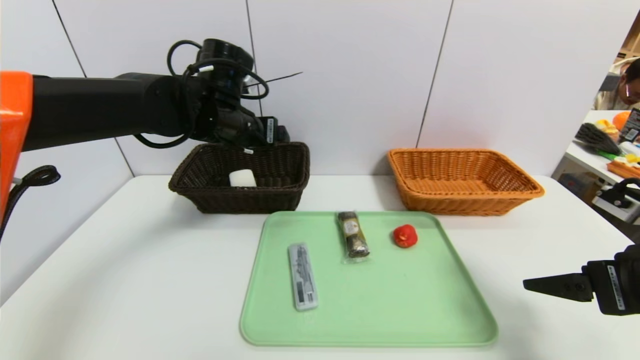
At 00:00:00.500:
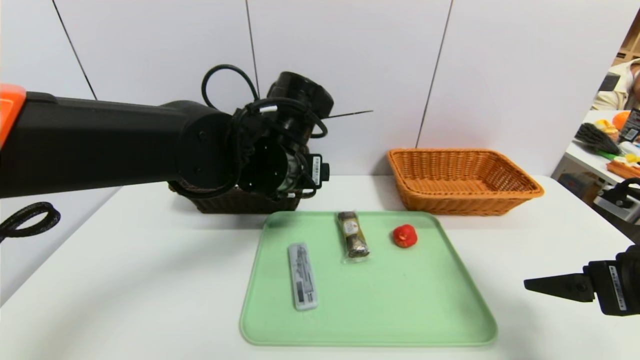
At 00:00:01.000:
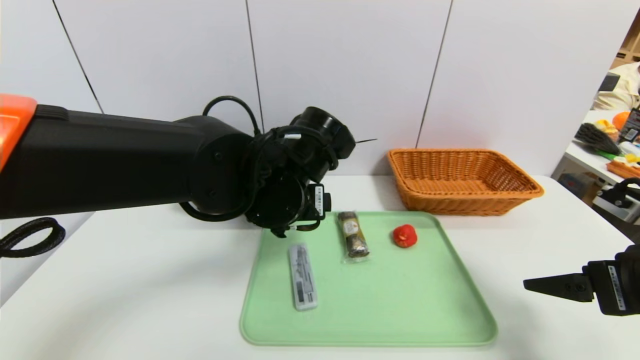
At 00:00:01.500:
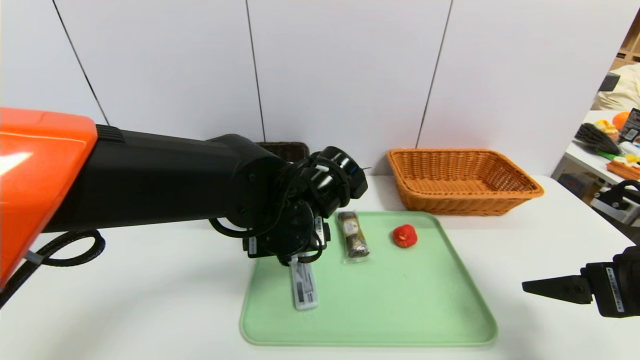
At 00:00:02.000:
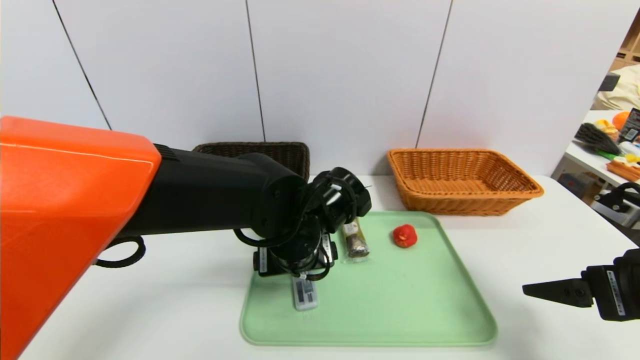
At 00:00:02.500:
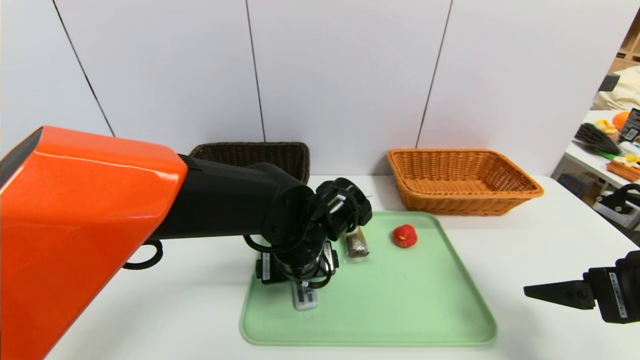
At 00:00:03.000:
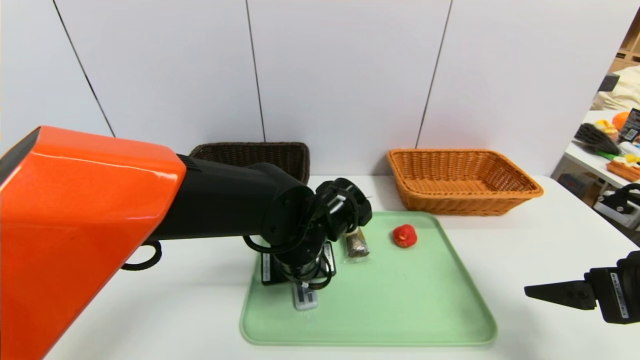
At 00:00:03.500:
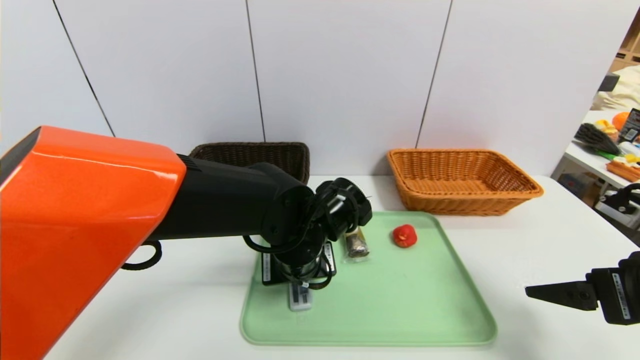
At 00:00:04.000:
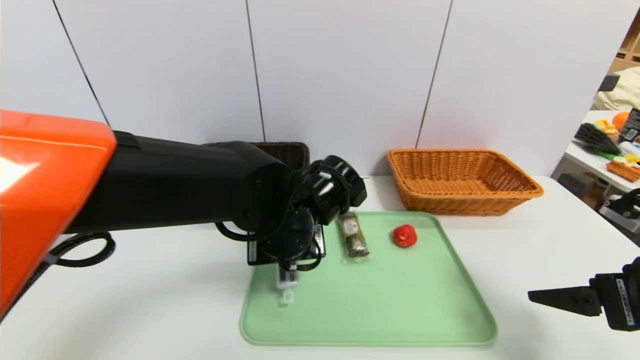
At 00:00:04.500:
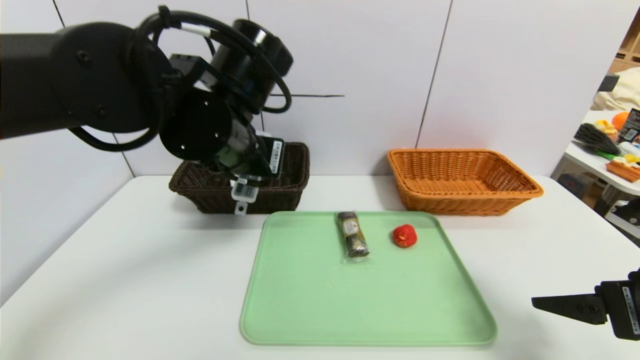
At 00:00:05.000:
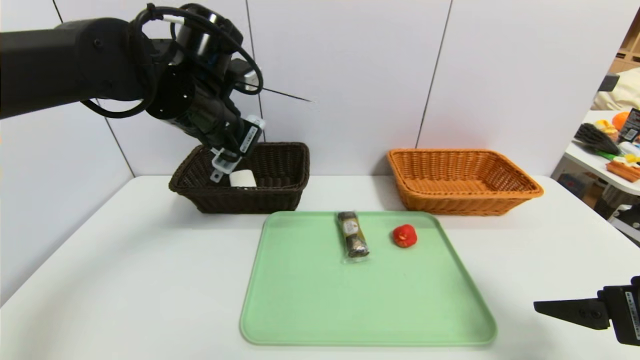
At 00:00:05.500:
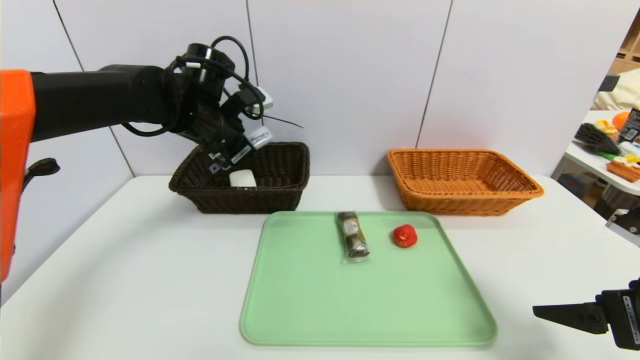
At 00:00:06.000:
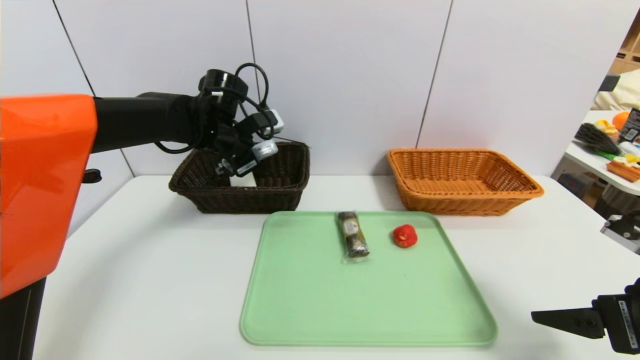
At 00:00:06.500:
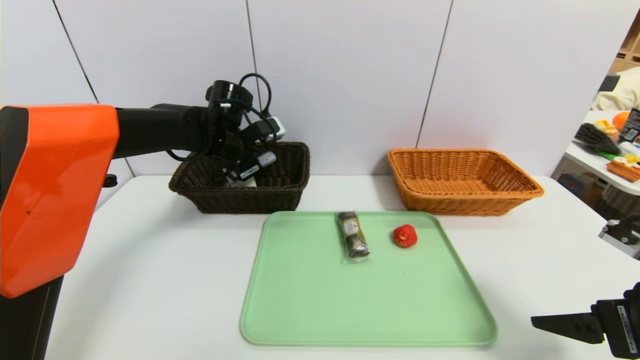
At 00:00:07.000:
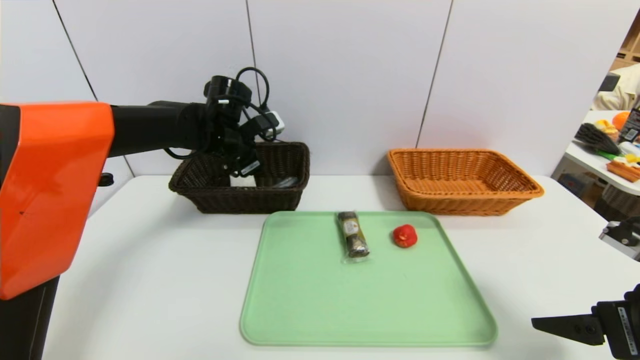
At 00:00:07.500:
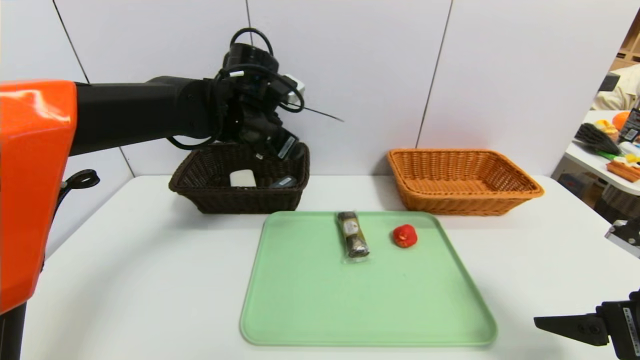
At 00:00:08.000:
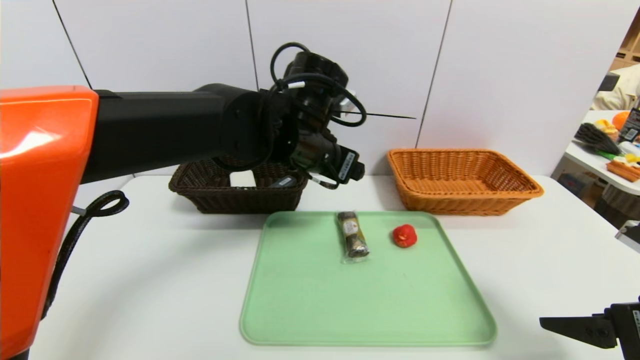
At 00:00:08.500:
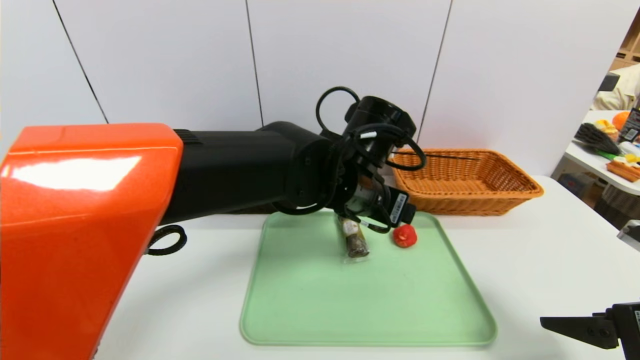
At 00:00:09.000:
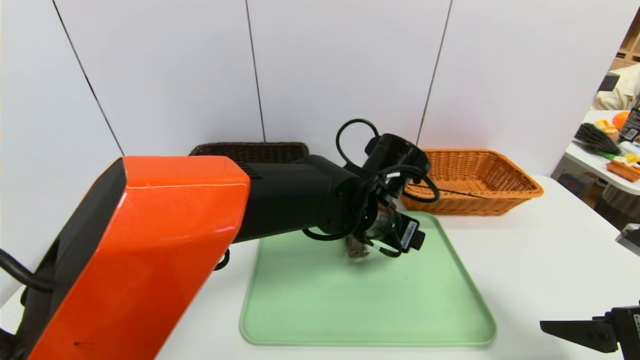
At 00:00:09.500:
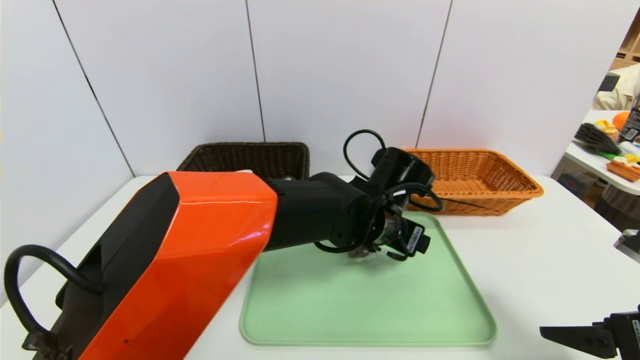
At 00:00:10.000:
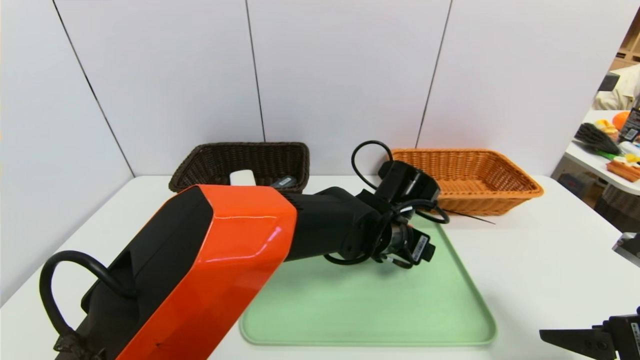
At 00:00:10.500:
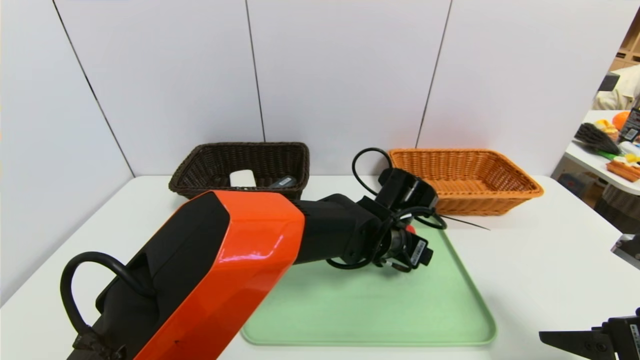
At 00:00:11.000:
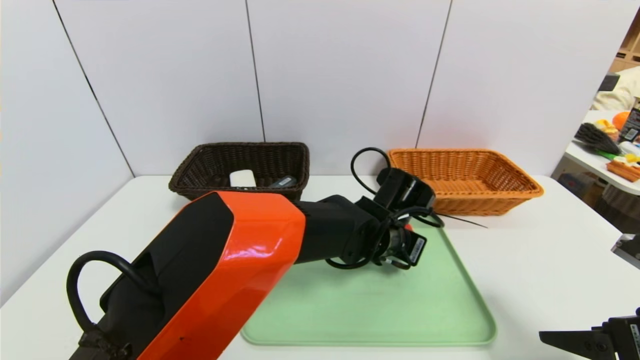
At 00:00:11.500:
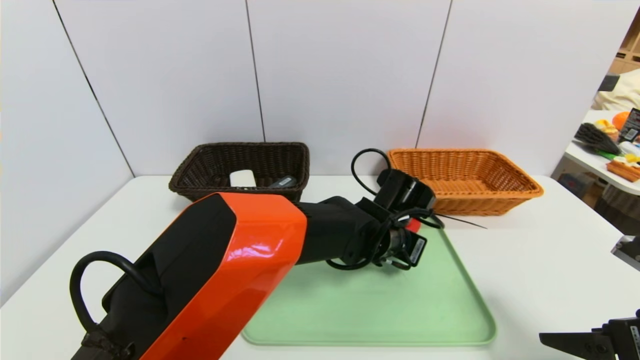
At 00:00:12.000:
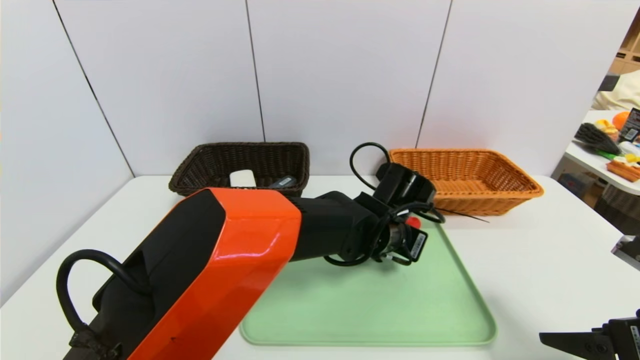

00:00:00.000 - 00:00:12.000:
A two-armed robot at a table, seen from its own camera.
Task of the whole recording: place the food in the right basket with the right gripper, and place the non food items in the left basket with the left gripper.
Step, 00:00:00.000 - 00:00:07.000: Grasp the compass and put it in the left basket.
00:00:00.000 - 00:00:02.000: The left gripper shifts roughly 20 cm downward, backward and to the right.
00:00:02.000 - 00:00:04.000: The left gripper closes.
00:00:04.000 - 00:00:06.000: The left gripper goes about 20 cm forward and to the left.
00:00:06.000 - 00:00:08.000: The left gripper shifts about 20 cm to the right and backward, and opens its fingers.
00:00:08.000 - 00:00:10.000: The left gripper goes approximately 15 cm downward and to the right.
00:00:10.000 - 00:00:12.000: The left gripper closes up.

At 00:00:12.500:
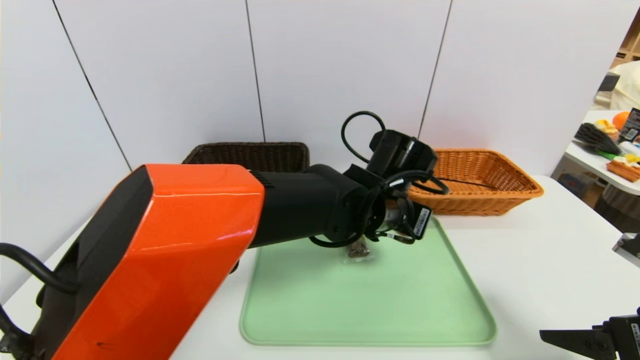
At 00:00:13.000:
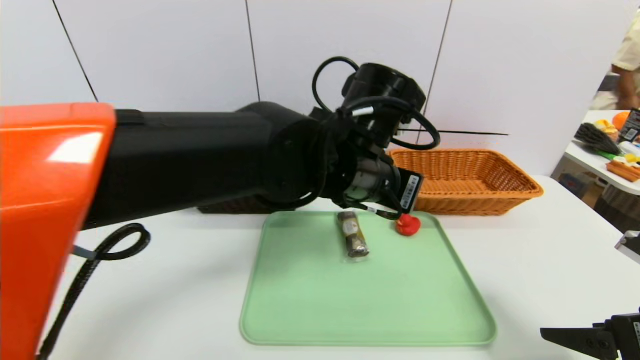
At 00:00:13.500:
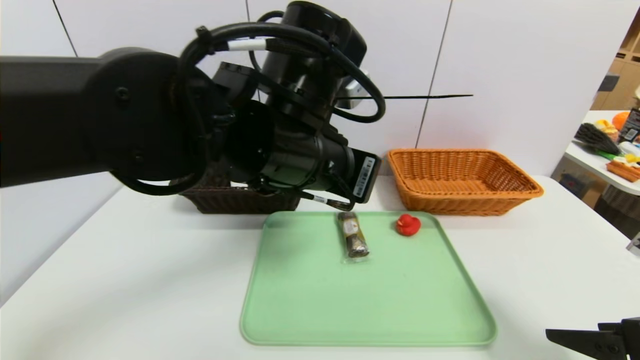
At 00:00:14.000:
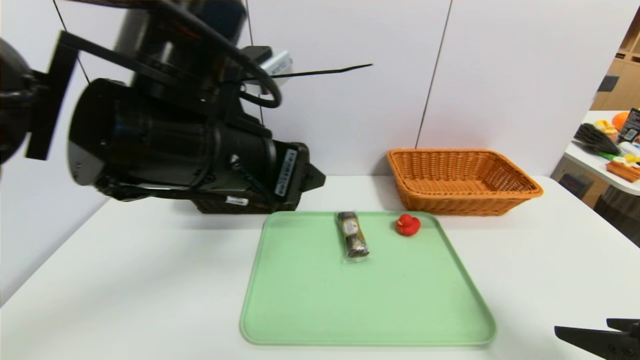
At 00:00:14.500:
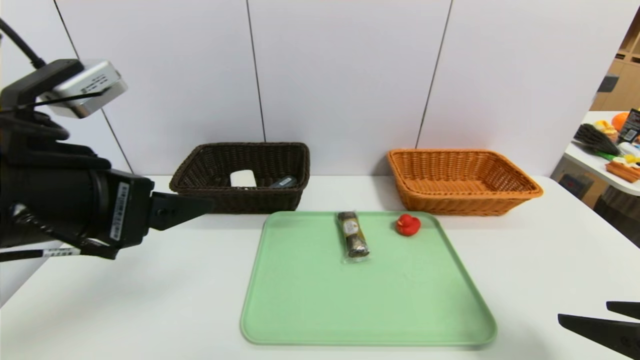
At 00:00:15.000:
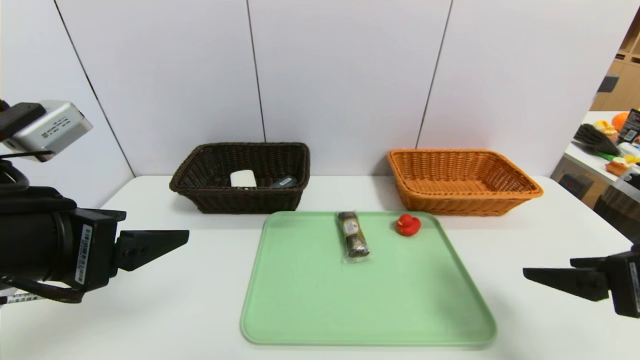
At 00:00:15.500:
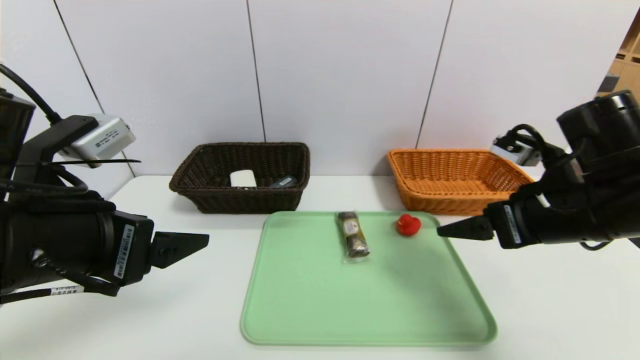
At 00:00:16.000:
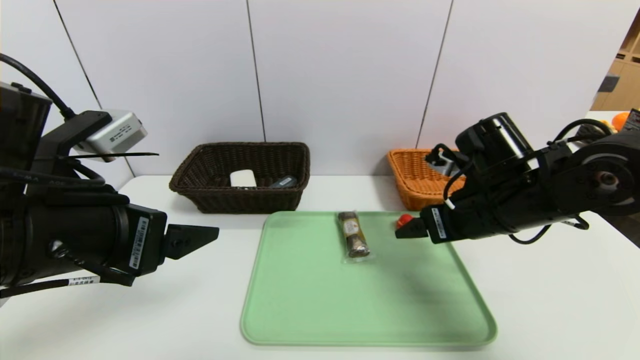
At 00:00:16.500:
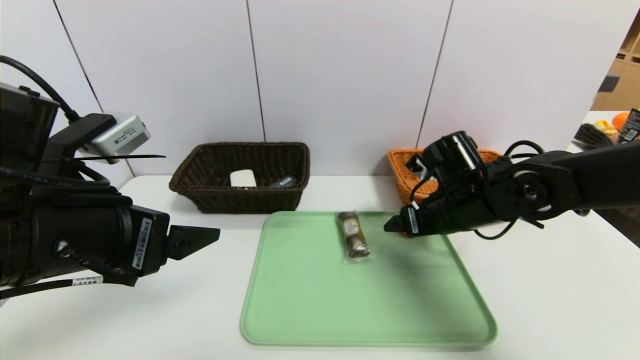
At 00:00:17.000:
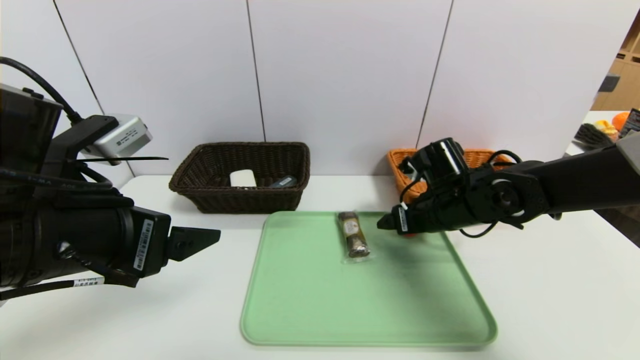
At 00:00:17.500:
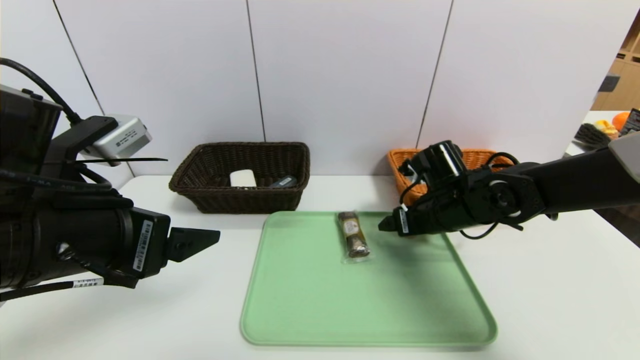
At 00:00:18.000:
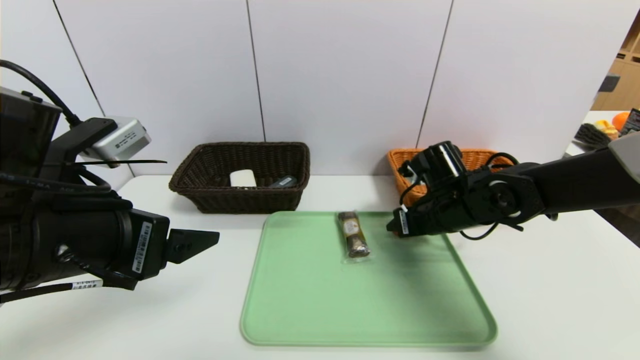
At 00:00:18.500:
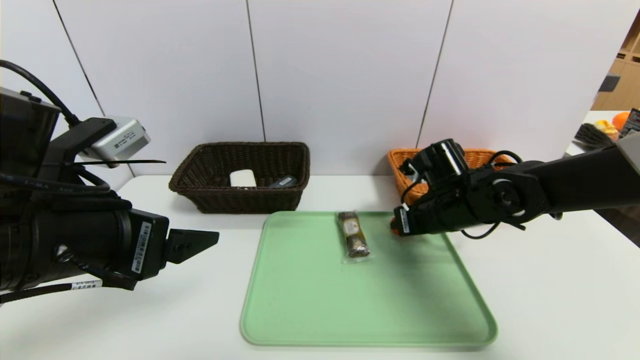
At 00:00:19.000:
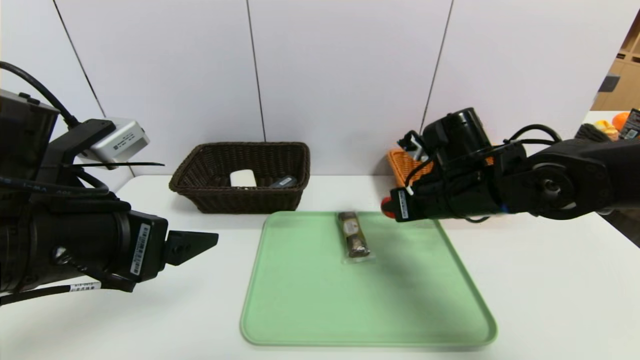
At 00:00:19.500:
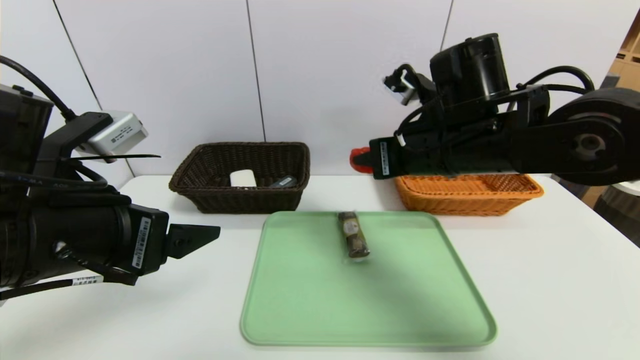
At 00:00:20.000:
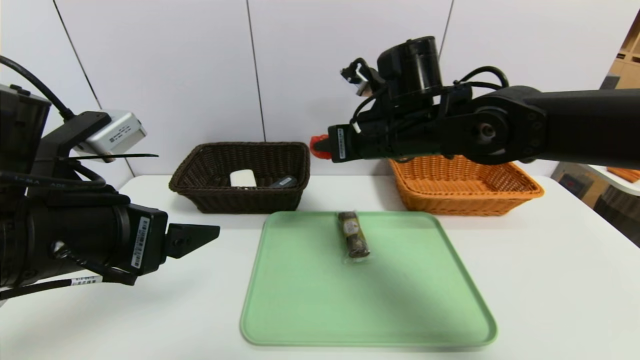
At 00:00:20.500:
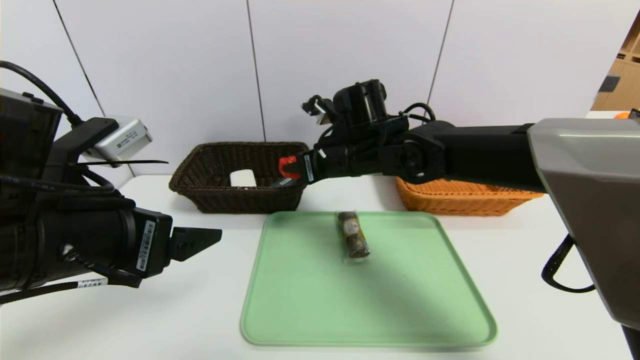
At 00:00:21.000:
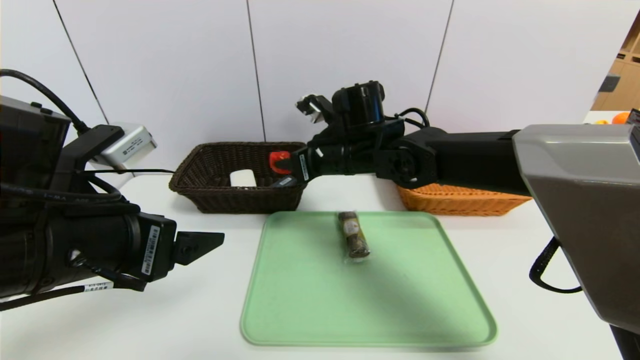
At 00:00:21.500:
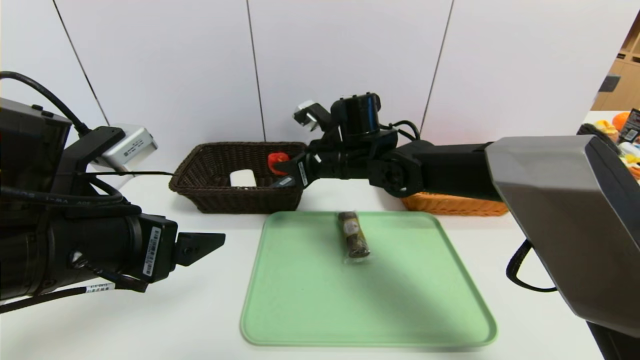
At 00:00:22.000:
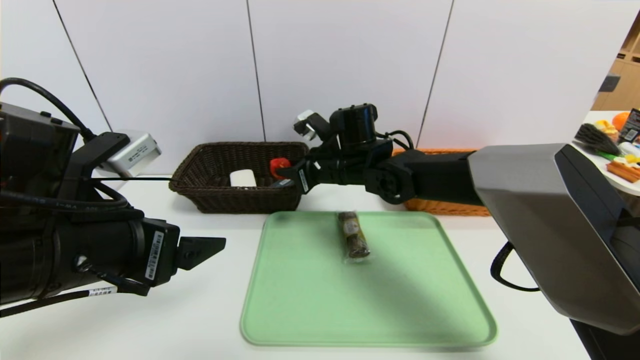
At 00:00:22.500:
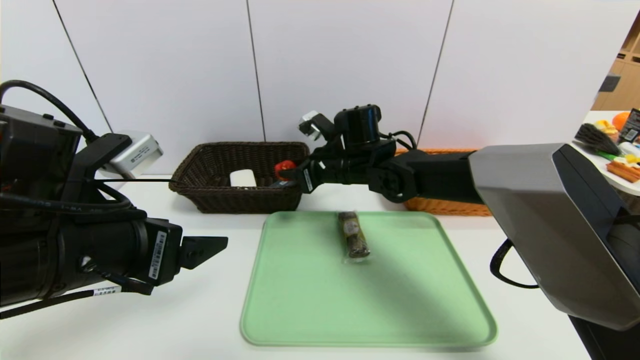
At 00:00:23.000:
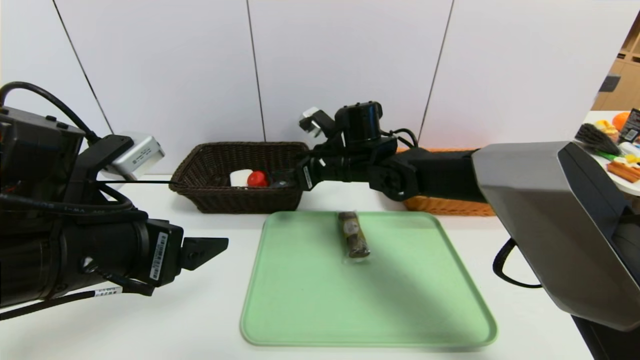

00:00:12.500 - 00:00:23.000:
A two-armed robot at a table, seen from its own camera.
Task of the whole recording: place the food in the right basket with the right gripper, and place the non food items in the left basket with the left gripper.
00:00:12.500 - 00:00:14.500: The left gripper heads to the left, backward and upward, covering about 35 cm, and opens up.
00:00:14.500 - 00:00:16.500: The right gripper travels forward and to the left by roughly 25 cm.
00:00:16.500 - 00:00:19.000: The right gripper closes its fingers.
00:00:19.000 - 00:00:21.000: The right gripper goes about 15 cm to the left and forward.
00:00:21.000 - 00:00:23.000: The right gripper opens.
